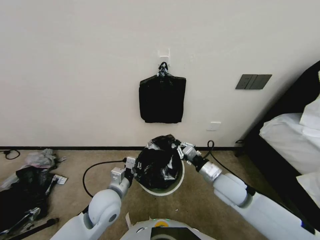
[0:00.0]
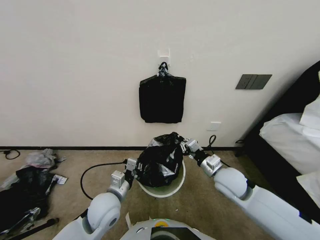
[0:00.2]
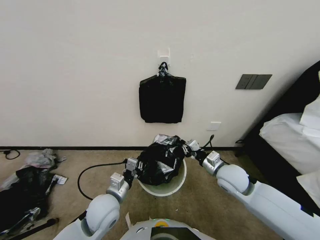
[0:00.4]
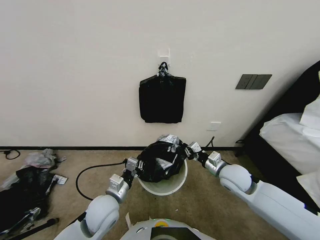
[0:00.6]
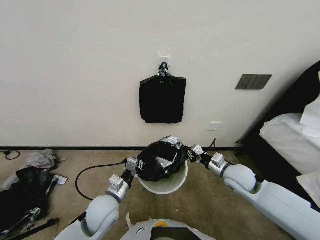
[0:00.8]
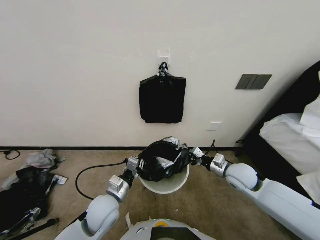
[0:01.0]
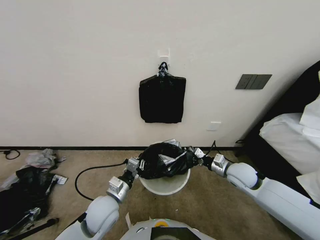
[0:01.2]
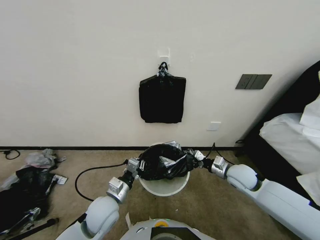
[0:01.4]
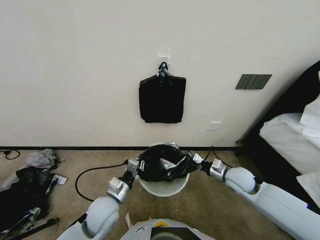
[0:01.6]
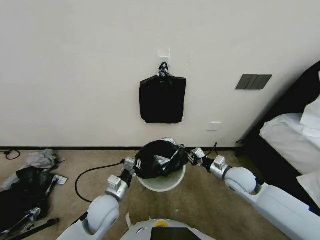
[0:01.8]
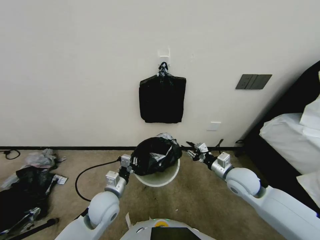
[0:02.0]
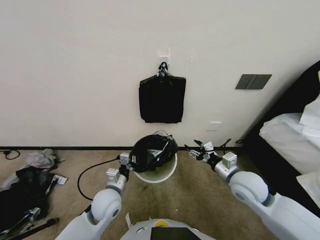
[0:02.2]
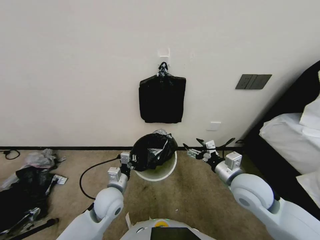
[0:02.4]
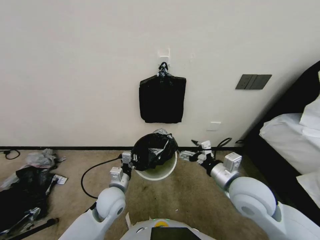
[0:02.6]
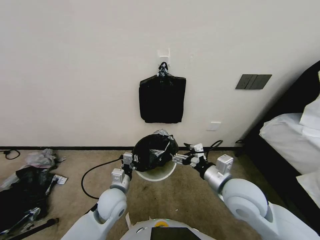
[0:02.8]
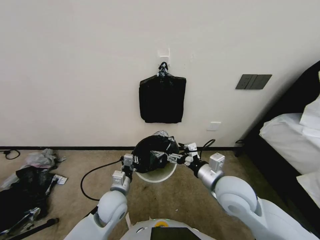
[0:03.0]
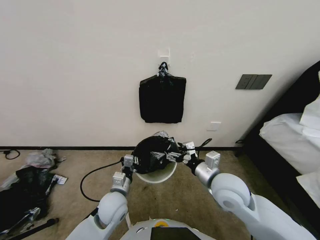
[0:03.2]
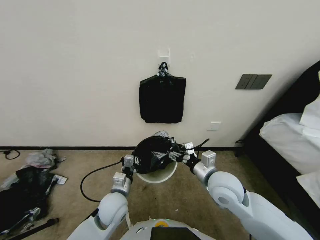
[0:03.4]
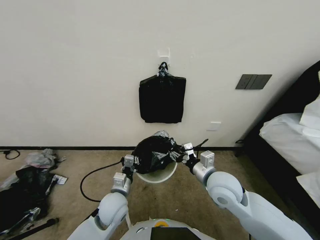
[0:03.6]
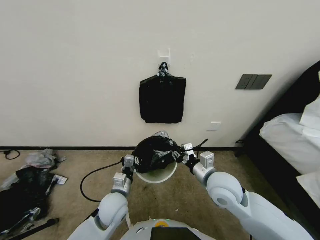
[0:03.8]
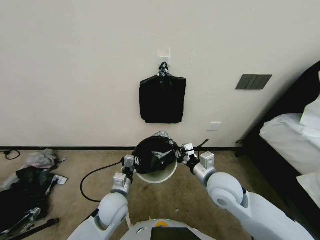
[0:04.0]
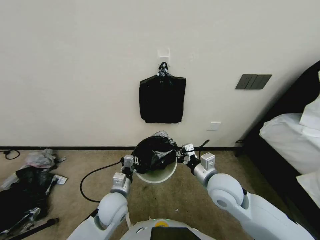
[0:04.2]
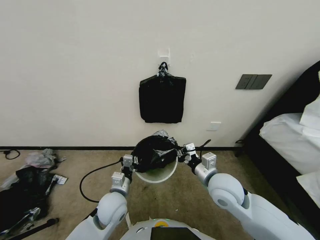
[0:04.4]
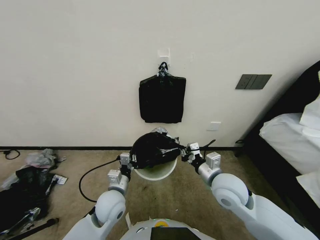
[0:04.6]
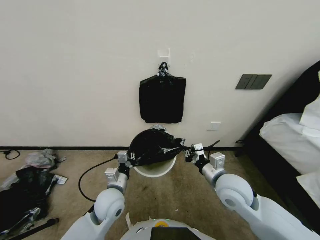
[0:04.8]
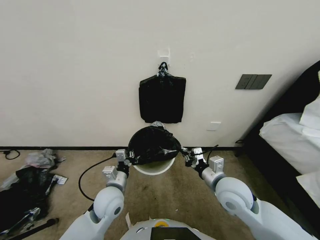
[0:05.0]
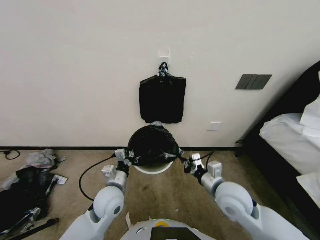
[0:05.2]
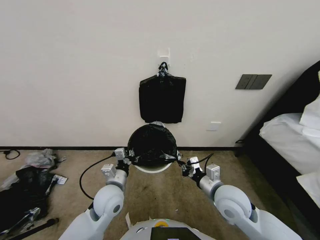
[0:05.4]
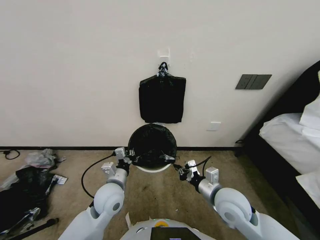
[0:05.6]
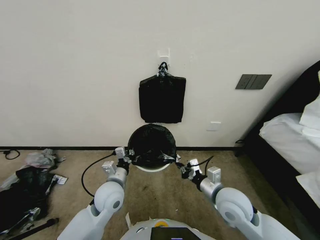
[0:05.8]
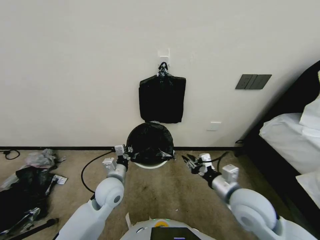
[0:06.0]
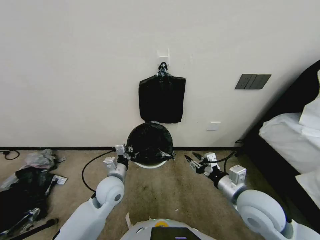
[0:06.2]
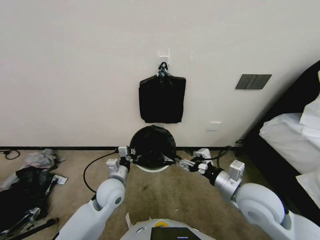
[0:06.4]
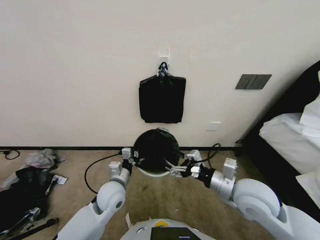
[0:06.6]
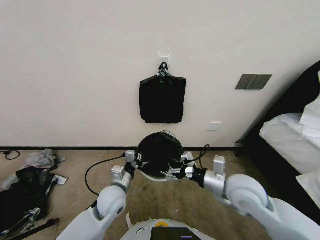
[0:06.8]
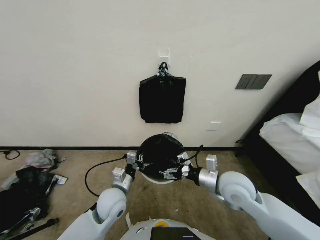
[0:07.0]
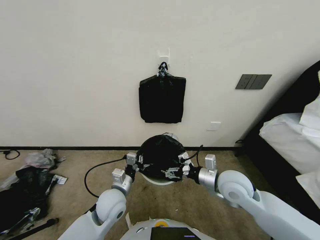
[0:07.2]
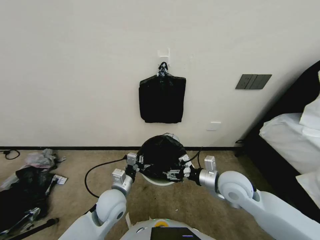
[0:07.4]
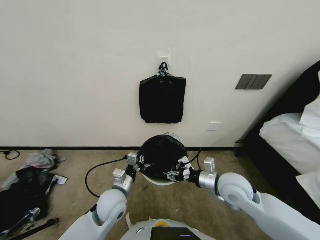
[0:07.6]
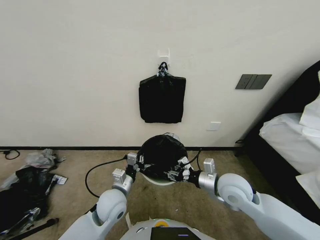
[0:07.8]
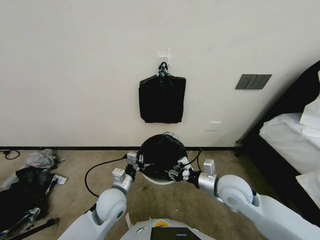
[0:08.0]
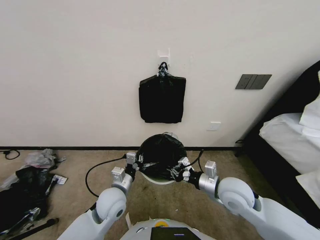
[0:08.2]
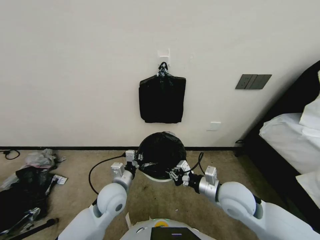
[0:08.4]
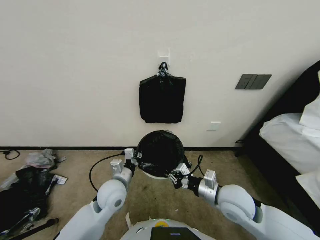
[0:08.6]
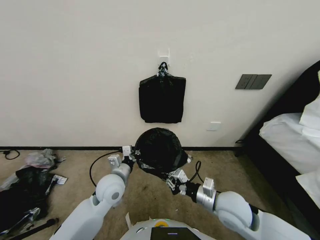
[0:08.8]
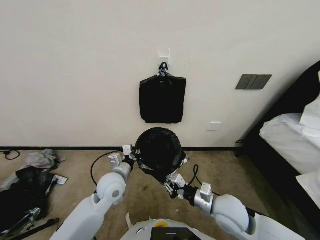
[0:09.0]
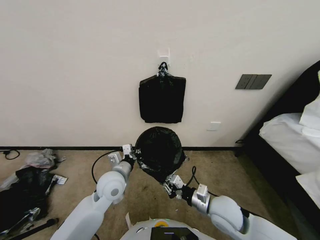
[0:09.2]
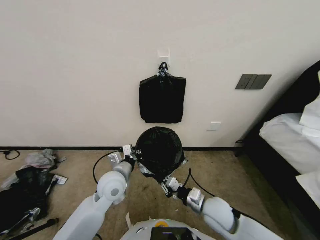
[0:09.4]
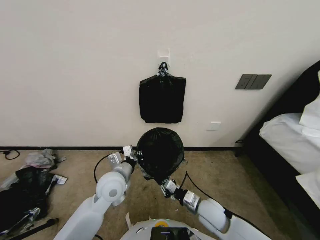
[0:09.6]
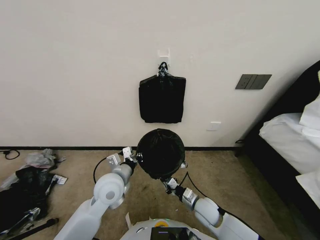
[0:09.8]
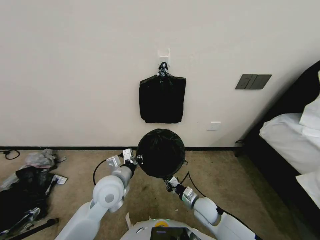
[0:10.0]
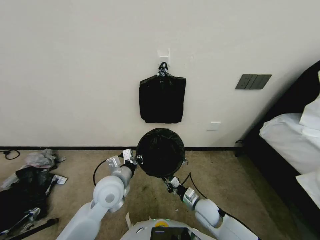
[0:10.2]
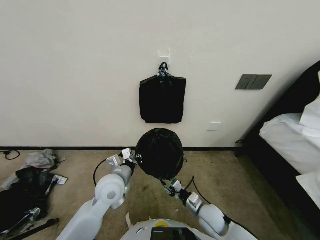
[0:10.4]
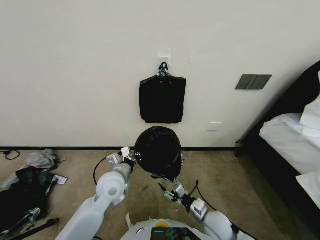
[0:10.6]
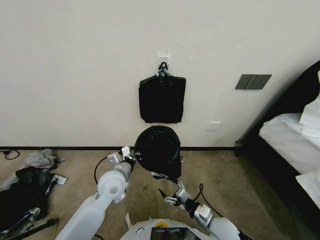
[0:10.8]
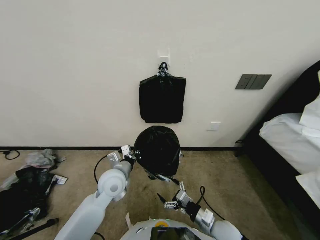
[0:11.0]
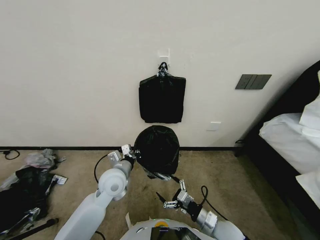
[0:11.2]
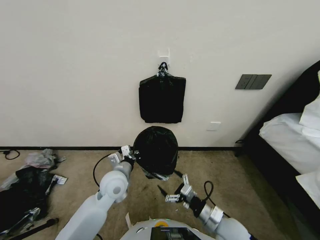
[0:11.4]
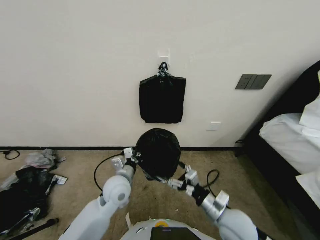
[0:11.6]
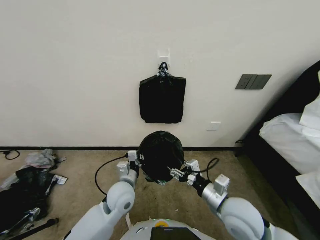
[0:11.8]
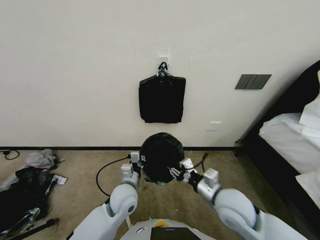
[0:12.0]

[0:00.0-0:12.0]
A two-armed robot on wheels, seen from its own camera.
Task of the whole recording: Place a trash bag onto the trash bin.
0:00.0 to 0:01.6: The right gripper goes some 10 cm to the right and forward.
0:01.6 to 0:03.0: The right gripper is displaced to the left, upward and backward by about 20 cm, and opens its fingers.
0:03.0 to 0:04.4: The right gripper closes.
0:04.4 to 0:06.0: The right gripper shifts by about 5 cm; the left gripper changes place by some 5 cm.
0:06.0 to 0:07.6: The right gripper opens.
0:07.6 to 0:09.0: The right gripper travels backward by approximately 5 cm, and closes up. The left gripper moves roughly 5 cm.
0:09.0 to 0:10.4: The right gripper is displaced downward by roughly 15 cm.
0:10.4 to 0:12.0: The left gripper ends up roughly 5 cm from where it was. The right gripper travels upward by roughly 20 cm, and opens, then closes again.

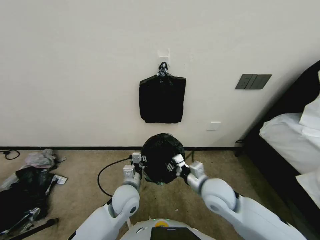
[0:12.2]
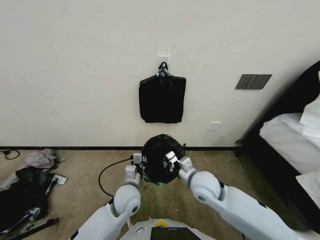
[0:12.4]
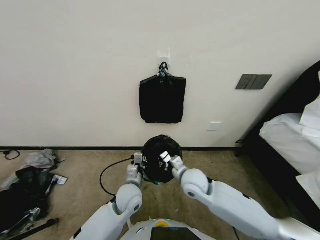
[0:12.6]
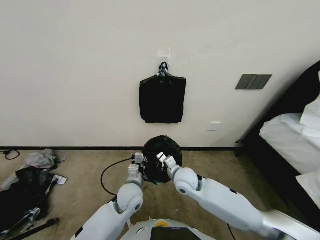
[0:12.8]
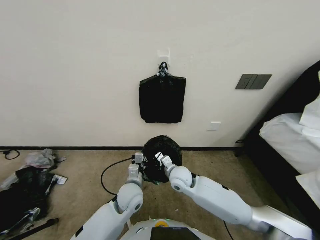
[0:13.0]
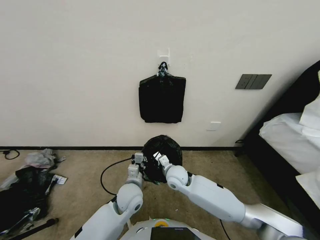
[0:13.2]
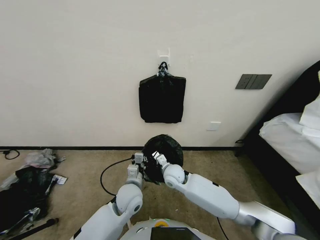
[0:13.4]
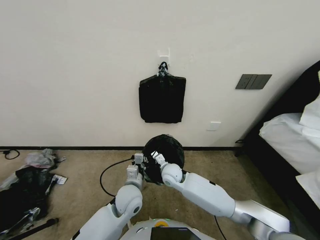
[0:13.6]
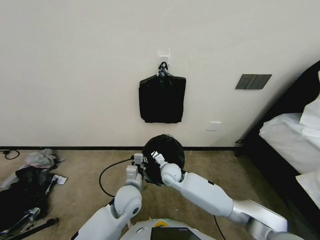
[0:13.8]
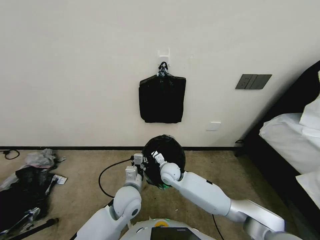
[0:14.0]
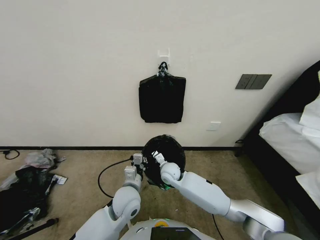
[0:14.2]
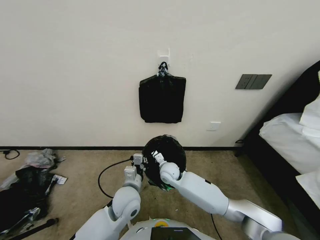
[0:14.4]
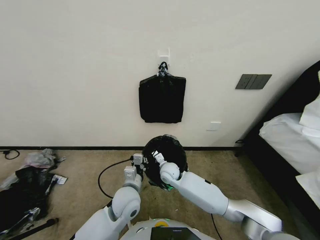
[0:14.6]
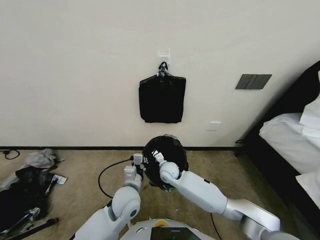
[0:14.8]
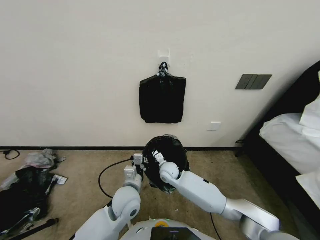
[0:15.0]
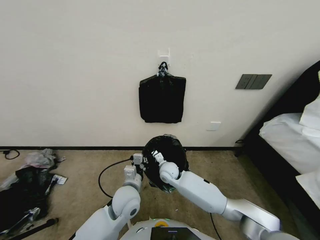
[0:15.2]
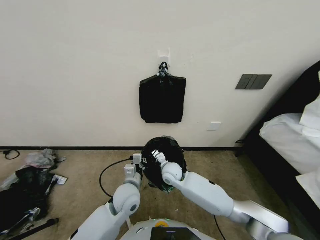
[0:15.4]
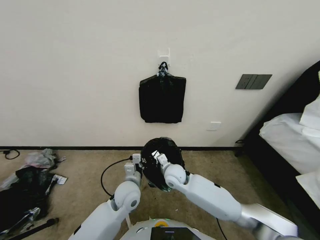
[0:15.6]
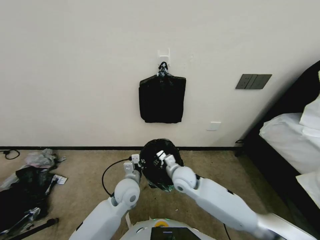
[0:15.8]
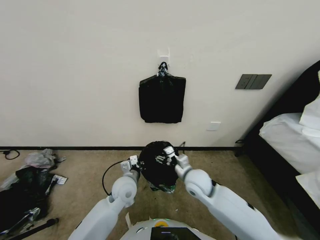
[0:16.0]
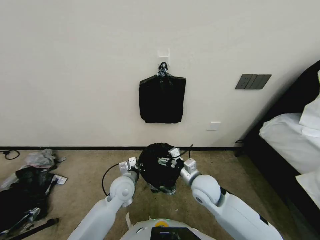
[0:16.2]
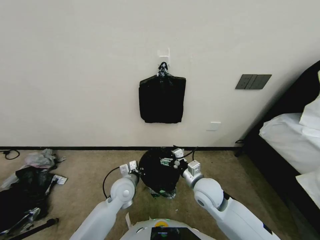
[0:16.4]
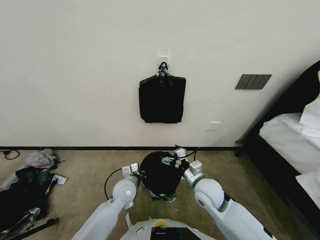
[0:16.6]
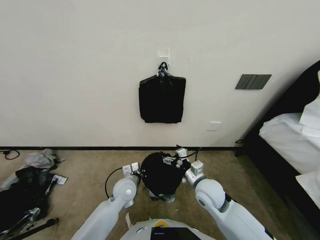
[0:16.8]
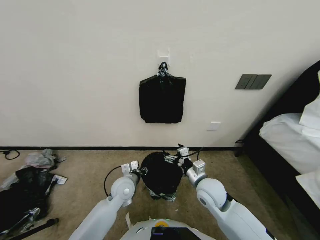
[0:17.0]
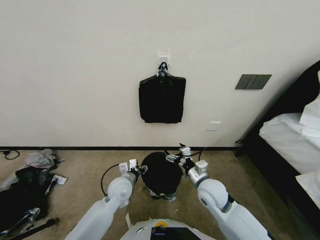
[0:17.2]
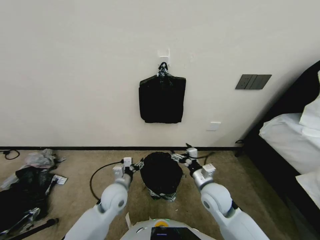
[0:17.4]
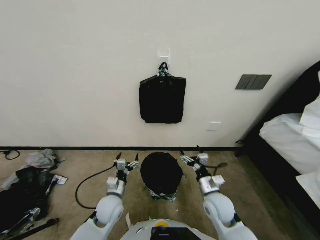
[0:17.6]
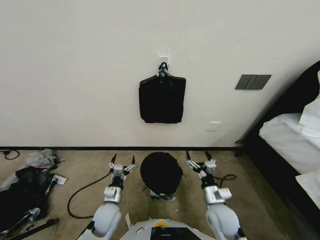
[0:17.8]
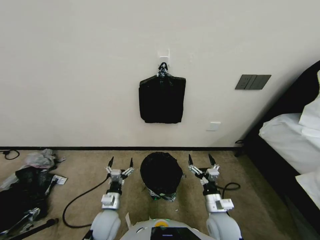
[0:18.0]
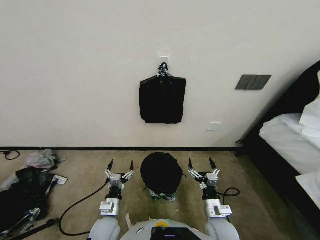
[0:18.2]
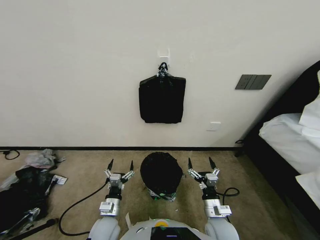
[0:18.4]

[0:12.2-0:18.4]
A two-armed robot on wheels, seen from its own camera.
Task of the whole recording: Place a trash bag onto the trash bin.
0:12.2 to 0:13.8: The right gripper is displaced to the left, forward and downward by about 20 cm.
0:13.8 to 0:15.4: There are only small adjustments of the grippers.
0:15.4 to 0:16.8: The left gripper moves roughly 5 cm. The right gripper goes some 20 cm to the right, backward and upward, and opens up.
0:16.8 to 0:18.4: The right gripper goes roughly 15 cm backward and downward. The left gripper shifts some 15 cm backward and to the left, and opens up.
